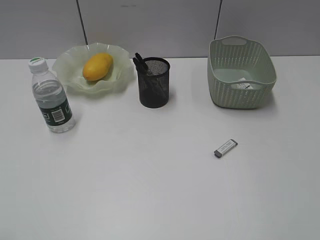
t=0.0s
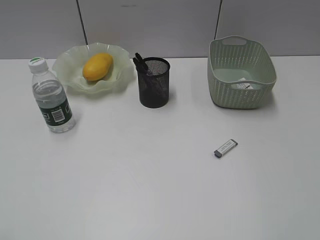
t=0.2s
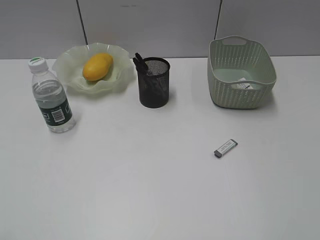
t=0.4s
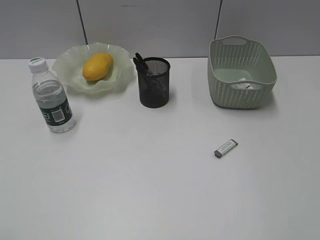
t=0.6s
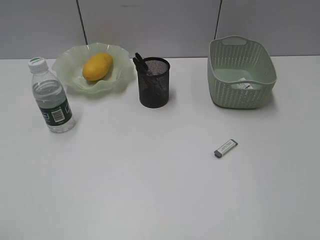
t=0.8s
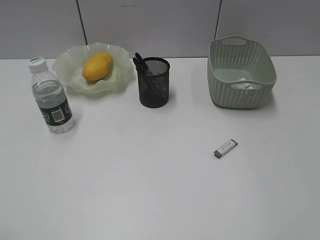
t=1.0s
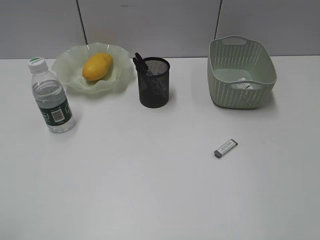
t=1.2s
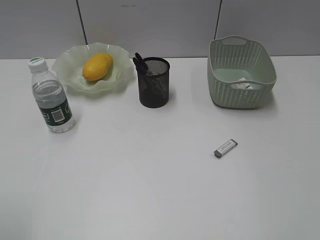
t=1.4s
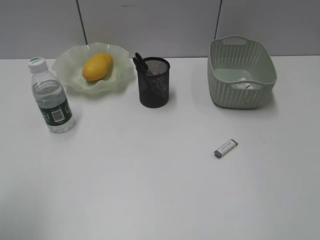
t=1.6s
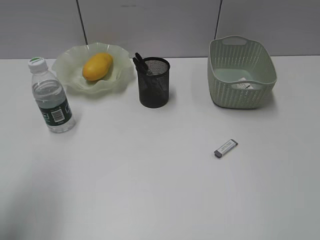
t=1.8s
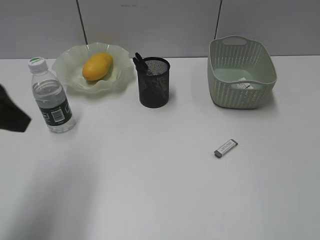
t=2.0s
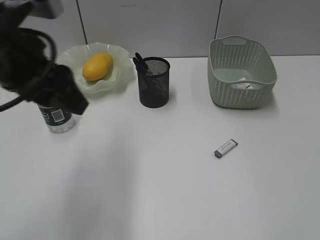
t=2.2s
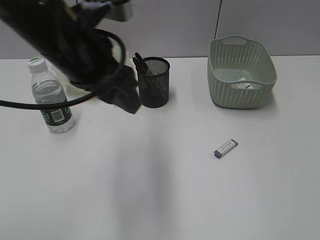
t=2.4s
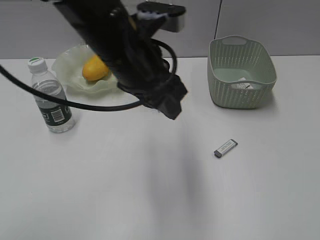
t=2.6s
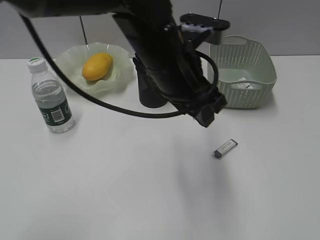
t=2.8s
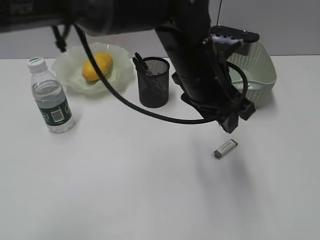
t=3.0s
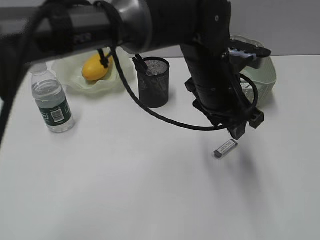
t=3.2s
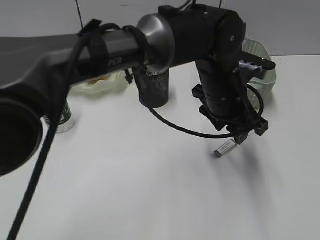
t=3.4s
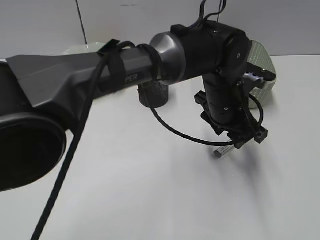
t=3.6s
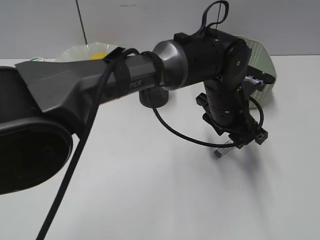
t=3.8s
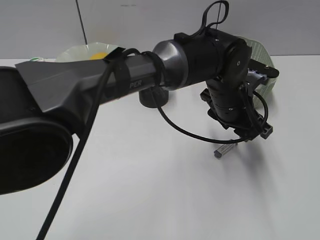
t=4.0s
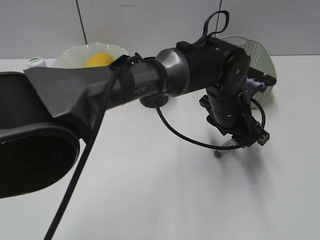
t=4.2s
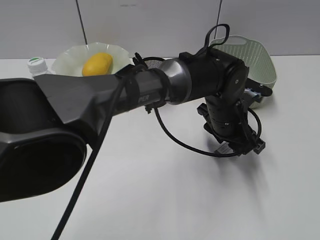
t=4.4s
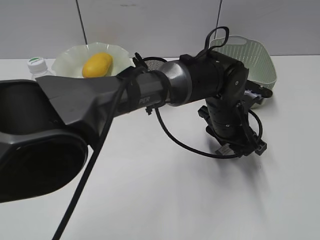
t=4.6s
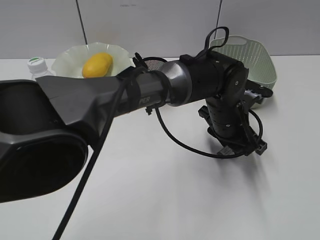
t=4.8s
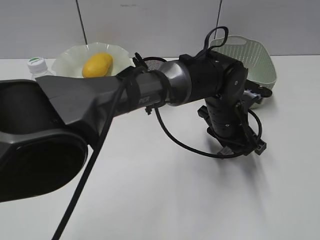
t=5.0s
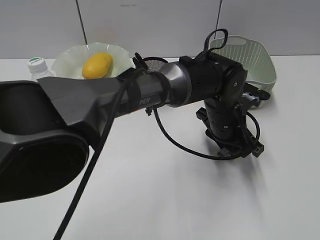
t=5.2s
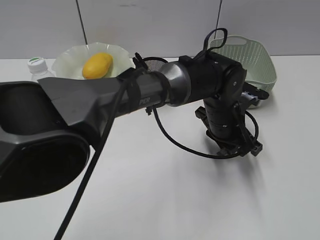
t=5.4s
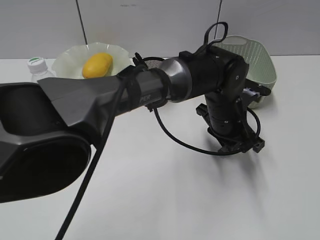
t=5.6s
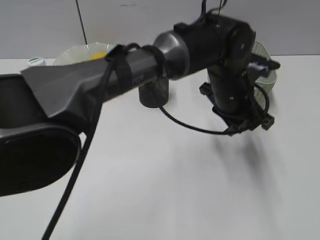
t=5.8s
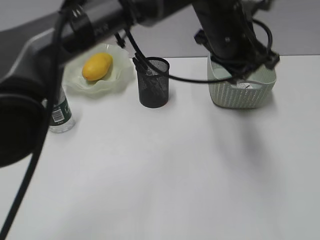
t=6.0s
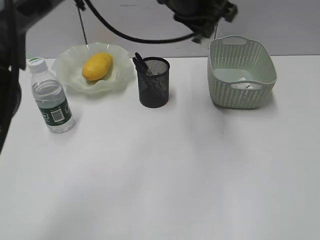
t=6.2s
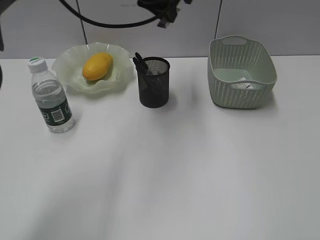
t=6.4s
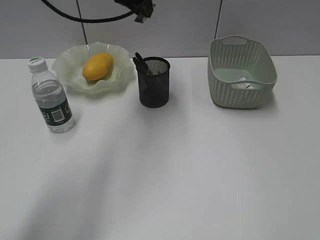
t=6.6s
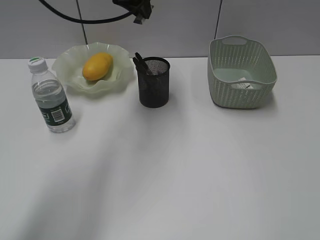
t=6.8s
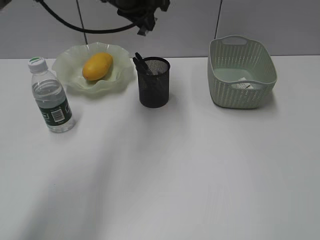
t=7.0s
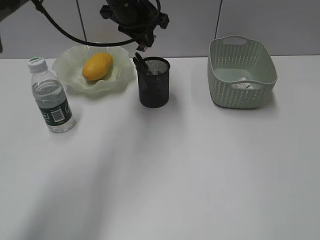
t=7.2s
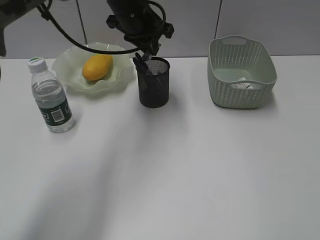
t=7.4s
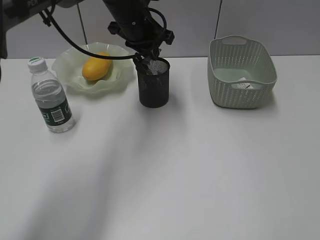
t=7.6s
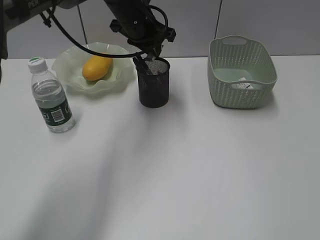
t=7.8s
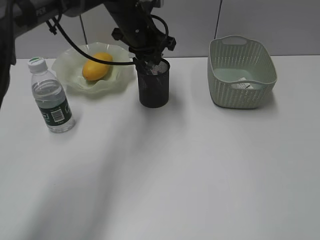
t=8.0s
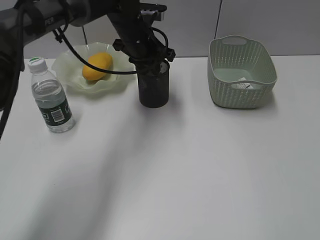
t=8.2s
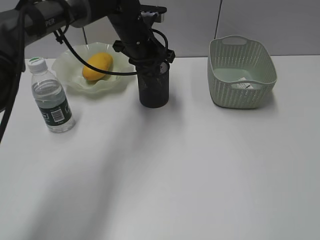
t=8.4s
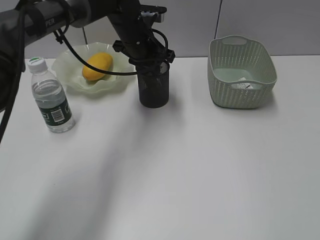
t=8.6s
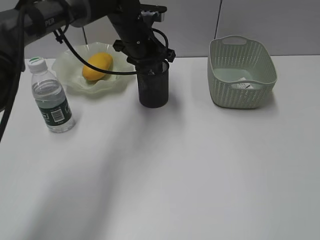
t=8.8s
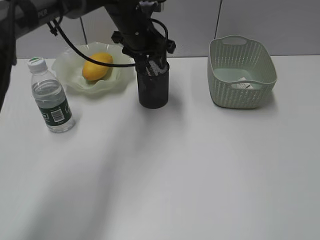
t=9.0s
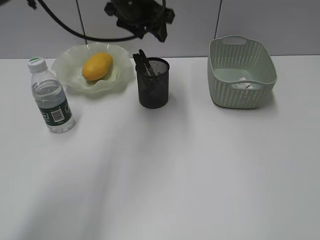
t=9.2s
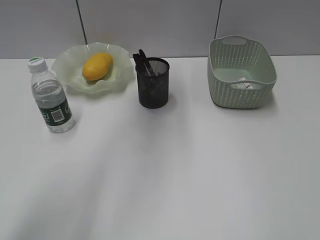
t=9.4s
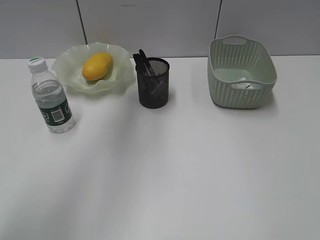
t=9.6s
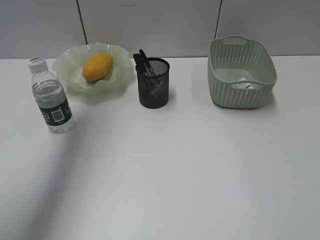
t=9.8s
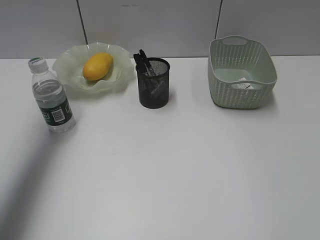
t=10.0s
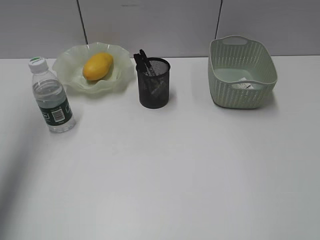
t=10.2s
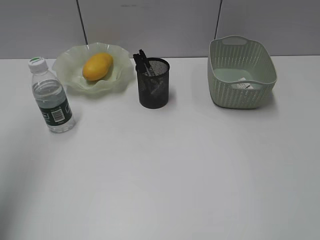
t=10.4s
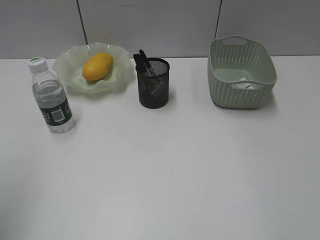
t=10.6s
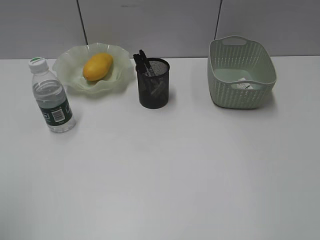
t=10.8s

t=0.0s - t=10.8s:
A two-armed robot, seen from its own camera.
Step, t=0.0s - t=5.4s: Grasp the eraser with left gripper.
Step, t=5.6s - t=9.0s: Place the eraser in pen holder with left gripper.
t=0.0s - t=1.6s: The left gripper travels forward by some 10 cm, and opens.
t=1.6s - t=3.0s: The left gripper is displaced to the right and forward by approximately 40 cm.
t=3.0s - t=4.6s: The left gripper heads downward and to the right, covering some 15 cm.
t=4.6s - t=6.2s: The left gripper goes some 20 cm upward and to the left, and closes its fingers.
t=6.2s - t=7.8s: The left gripper moves to the left, forward and downward, approximately 15 cm.
t=7.8s - t=9.2s: The left gripper opens up.
t=9.2s - t=10.8s: The left gripper shifts about 50 cm backward and to the left.

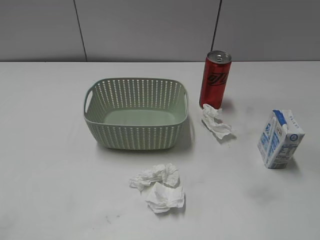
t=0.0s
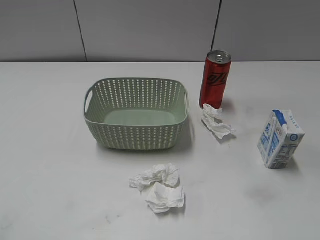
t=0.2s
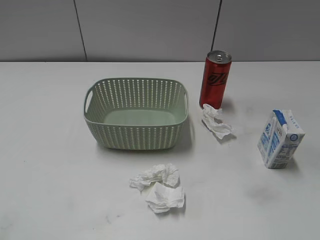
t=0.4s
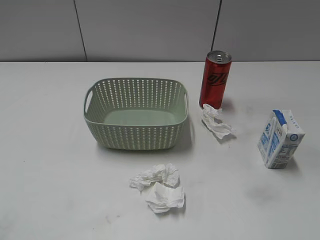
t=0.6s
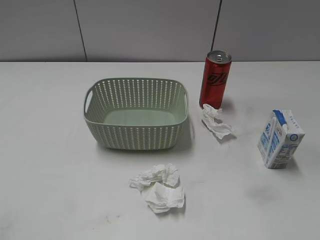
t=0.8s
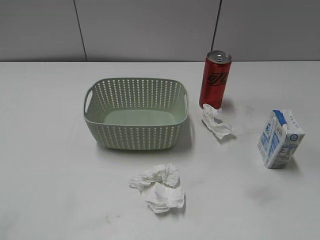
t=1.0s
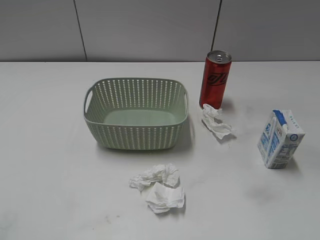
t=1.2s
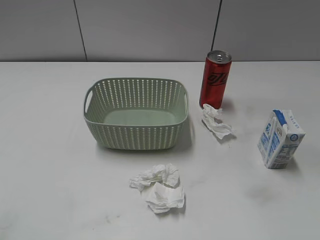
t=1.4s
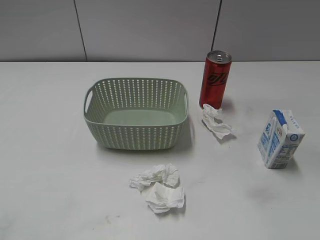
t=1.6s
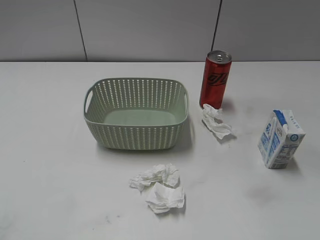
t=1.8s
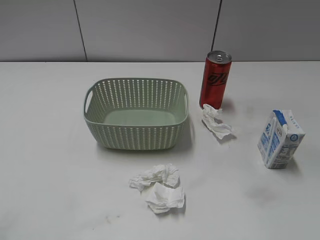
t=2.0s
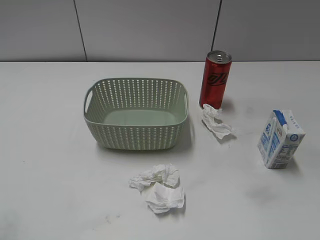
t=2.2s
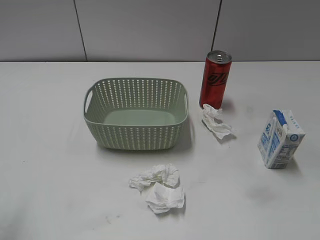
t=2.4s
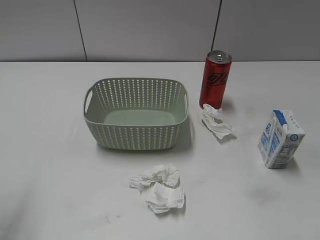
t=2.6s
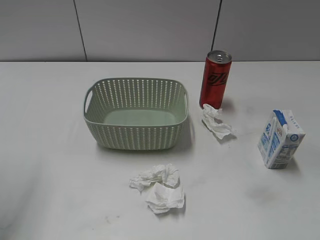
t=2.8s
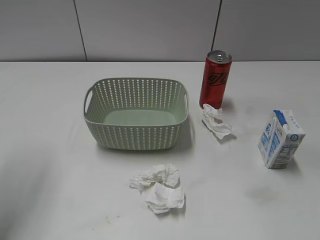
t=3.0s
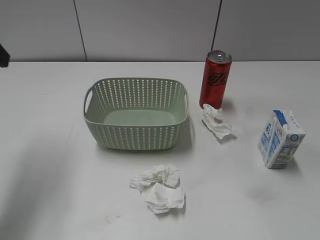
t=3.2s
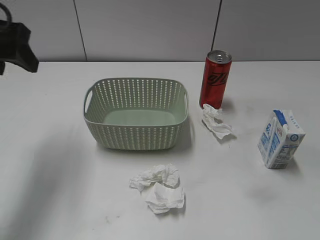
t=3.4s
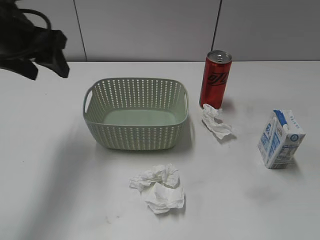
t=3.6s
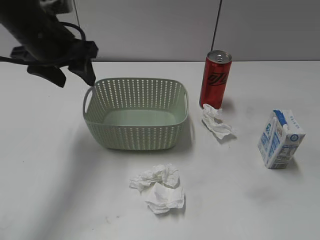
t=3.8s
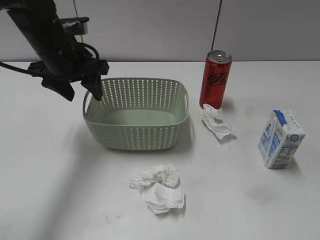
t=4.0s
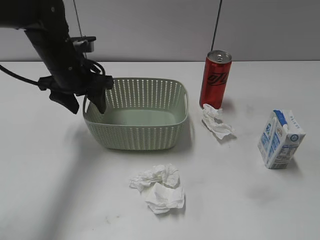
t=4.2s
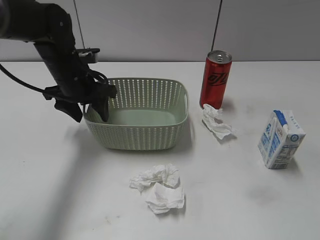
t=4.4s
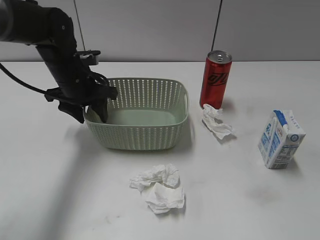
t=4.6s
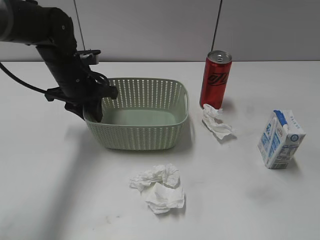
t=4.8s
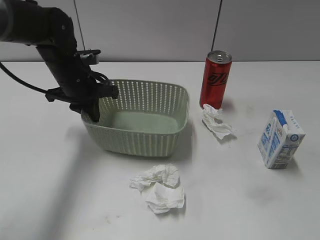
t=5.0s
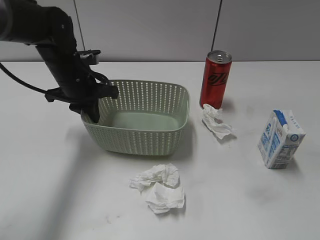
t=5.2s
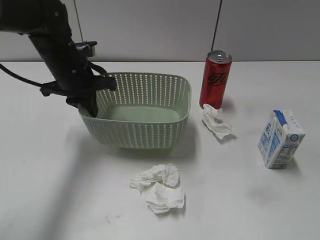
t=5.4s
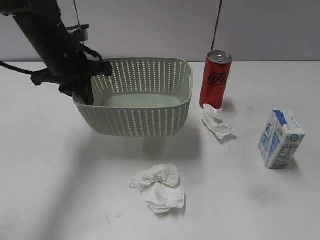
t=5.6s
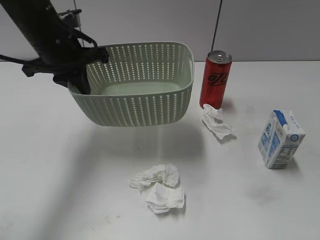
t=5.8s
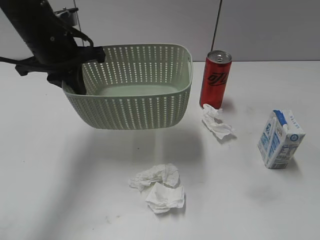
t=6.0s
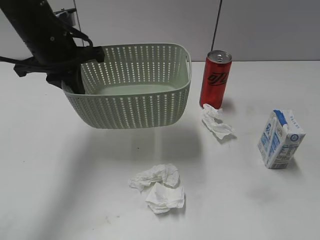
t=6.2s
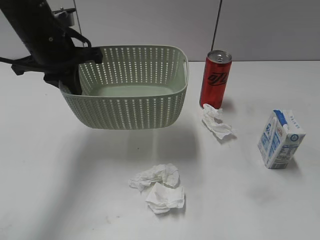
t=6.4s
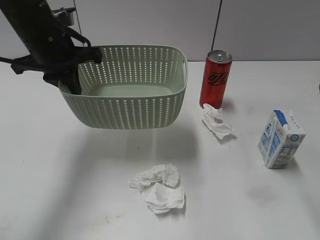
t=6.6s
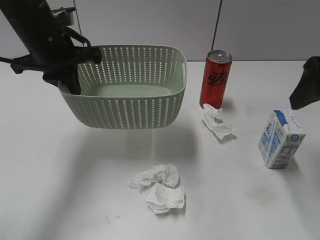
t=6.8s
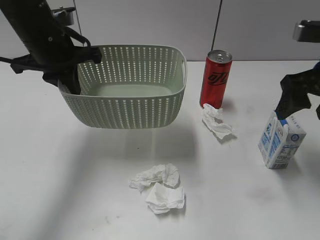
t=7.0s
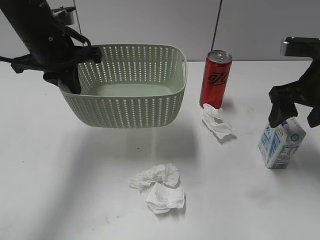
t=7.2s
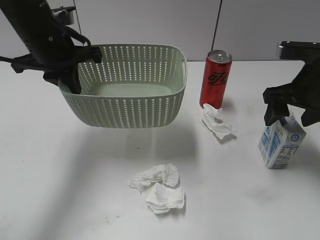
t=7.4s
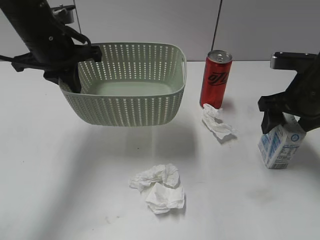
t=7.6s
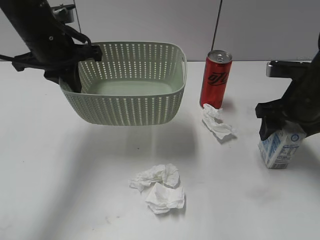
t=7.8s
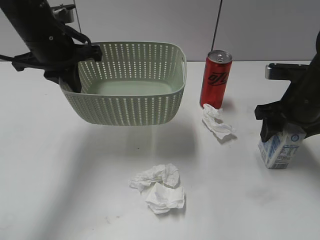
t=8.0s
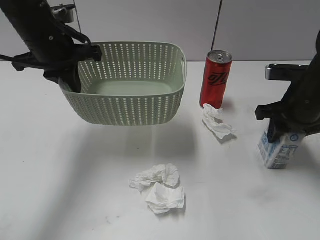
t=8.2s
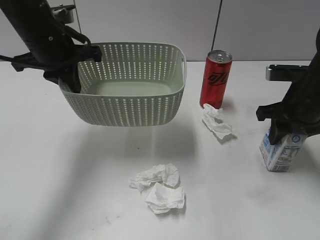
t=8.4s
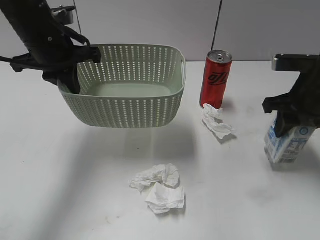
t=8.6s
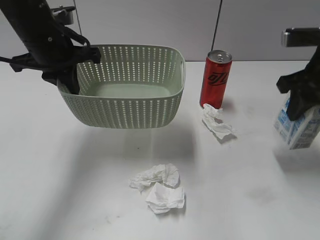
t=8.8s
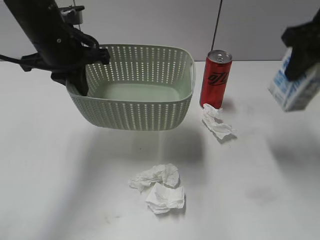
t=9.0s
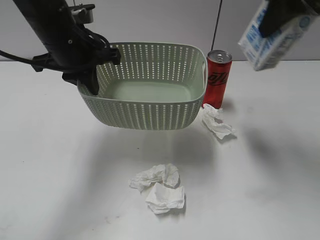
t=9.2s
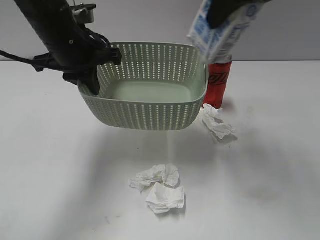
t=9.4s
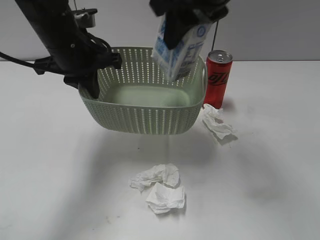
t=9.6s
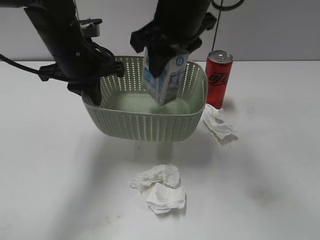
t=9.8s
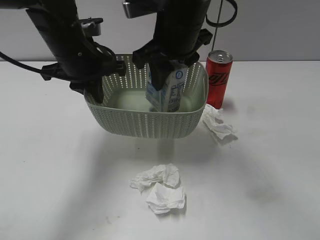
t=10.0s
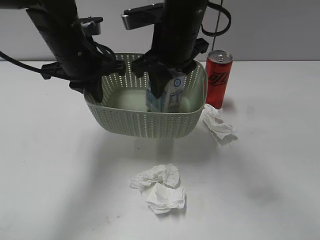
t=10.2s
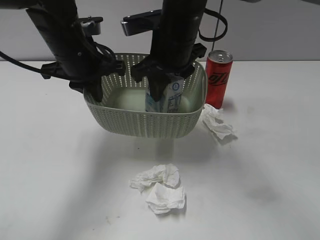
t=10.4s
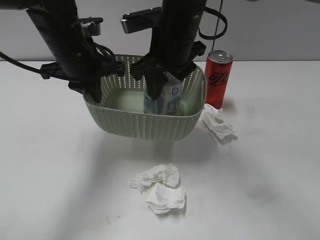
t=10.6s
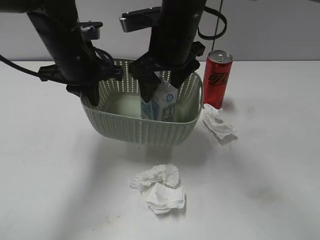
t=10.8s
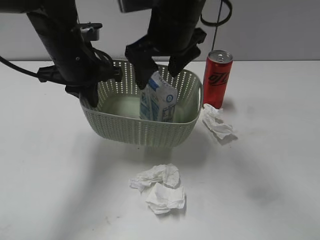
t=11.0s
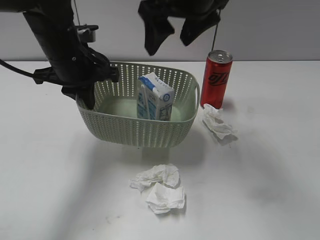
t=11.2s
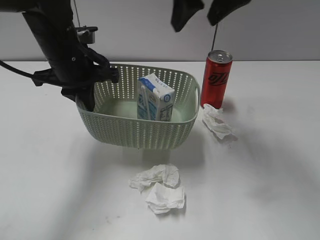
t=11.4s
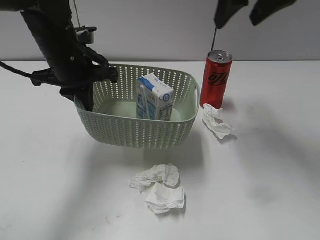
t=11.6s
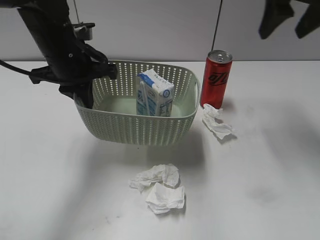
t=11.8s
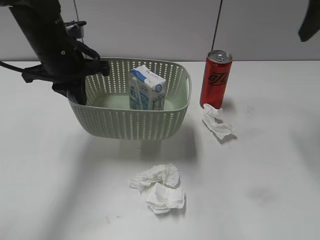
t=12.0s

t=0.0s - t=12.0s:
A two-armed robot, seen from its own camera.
Step, t=3.2s - t=5.2s: Grasp the basket with left gripper.
Step, t=5.4s - t=6.4s: Lift the basket with left gripper.
Step, t=6.6s - t=8.4s: Grasp the milk with right gripper.
Step, t=8.6s - t=11.2s: Place the milk in the basket with right gripper.
t=1.6s - t=3.0s: The left gripper travels forward by approximately 25 cm.
t=3.0s - t=4.4s: The left gripper goes roughly 25 cm downward, forward and to the right.
t=4.4s - t=6.0s: The left gripper travels upward by roughly 10 cm, and closes.
t=6.0s - t=7.6s: The right gripper shifts approximately 30 cm forward.
t=7.6s - t=9.0s: The right gripper moves upward, some 15 cm, and closes up.
t=9.0s - t=10.4s: The right gripper heads to the left, covering about 20 cm.
t=10.4s - t=12.0s: The right gripper heads to the right and upward, covering approximately 30 cm, and opens up.
